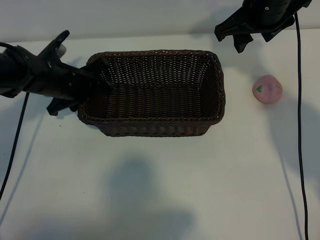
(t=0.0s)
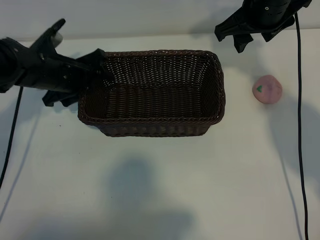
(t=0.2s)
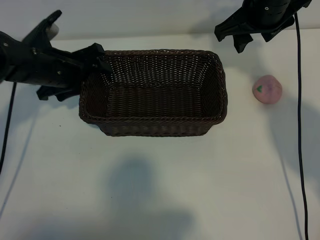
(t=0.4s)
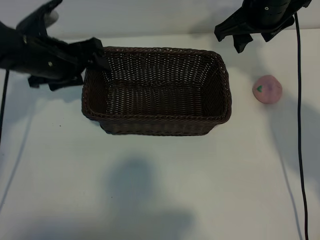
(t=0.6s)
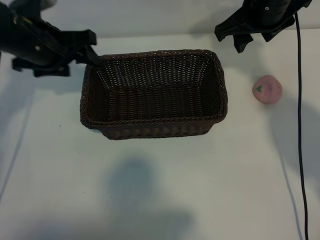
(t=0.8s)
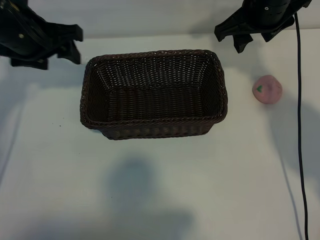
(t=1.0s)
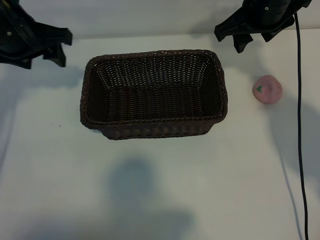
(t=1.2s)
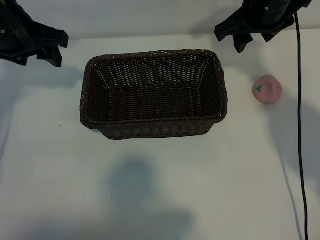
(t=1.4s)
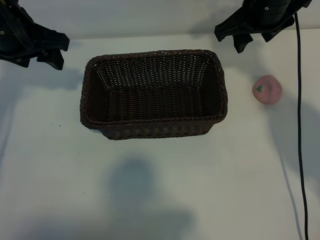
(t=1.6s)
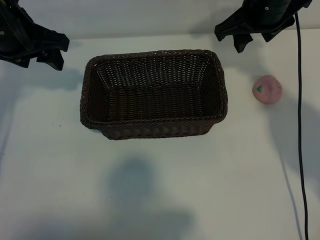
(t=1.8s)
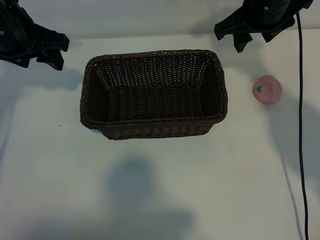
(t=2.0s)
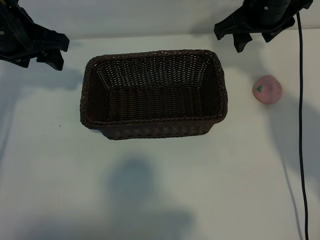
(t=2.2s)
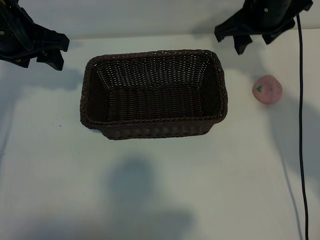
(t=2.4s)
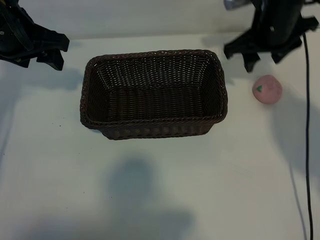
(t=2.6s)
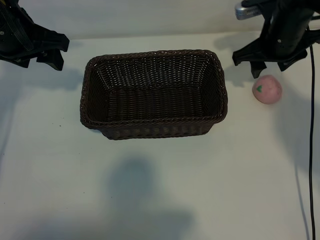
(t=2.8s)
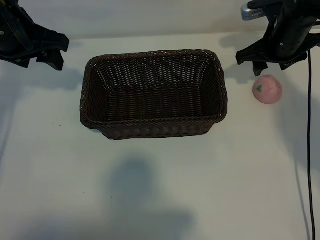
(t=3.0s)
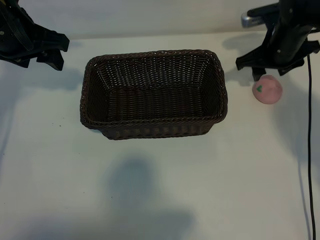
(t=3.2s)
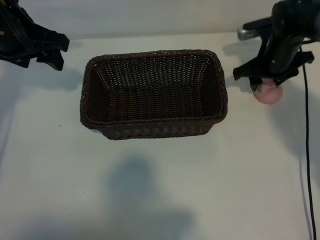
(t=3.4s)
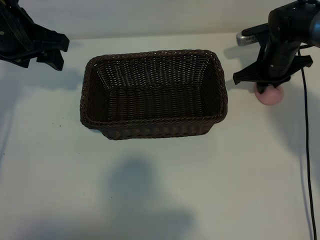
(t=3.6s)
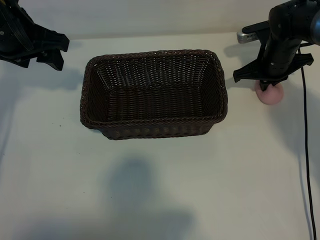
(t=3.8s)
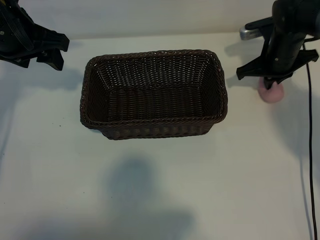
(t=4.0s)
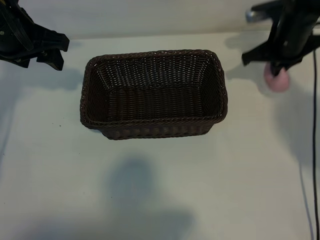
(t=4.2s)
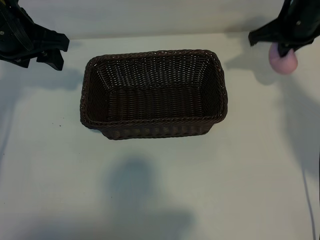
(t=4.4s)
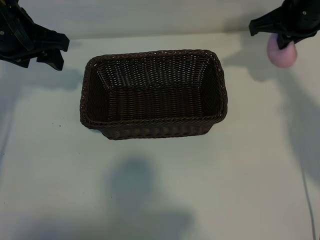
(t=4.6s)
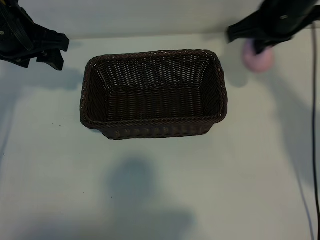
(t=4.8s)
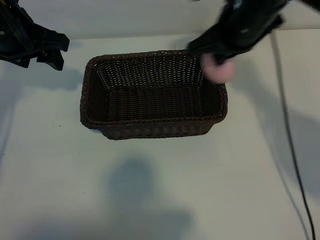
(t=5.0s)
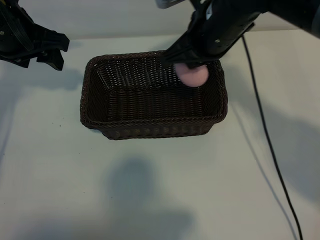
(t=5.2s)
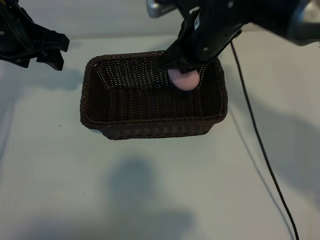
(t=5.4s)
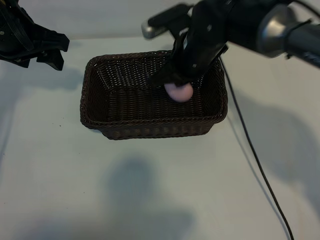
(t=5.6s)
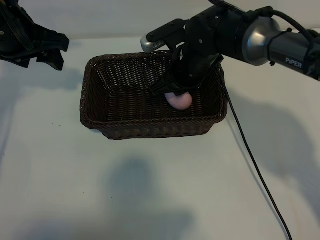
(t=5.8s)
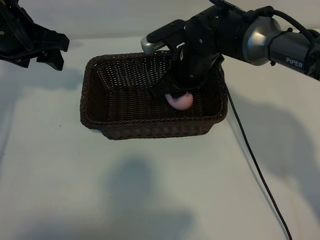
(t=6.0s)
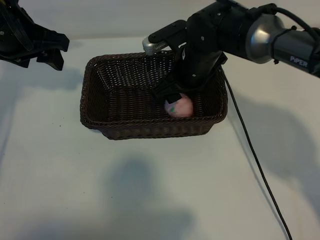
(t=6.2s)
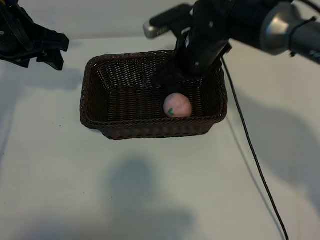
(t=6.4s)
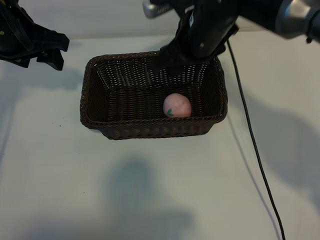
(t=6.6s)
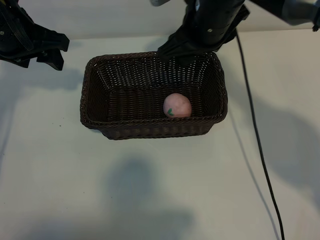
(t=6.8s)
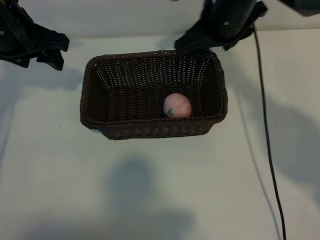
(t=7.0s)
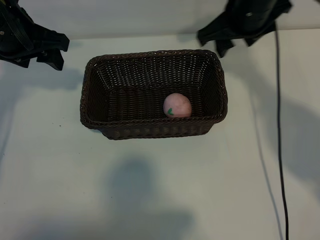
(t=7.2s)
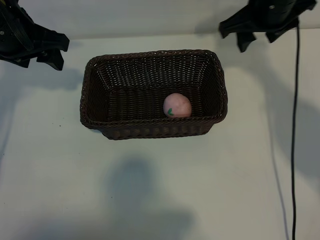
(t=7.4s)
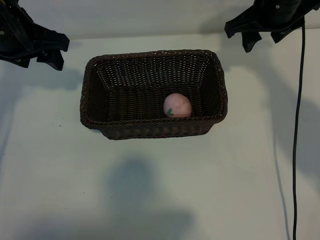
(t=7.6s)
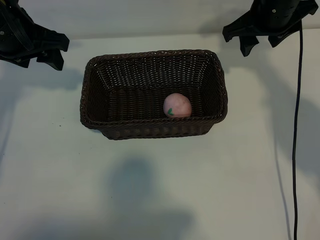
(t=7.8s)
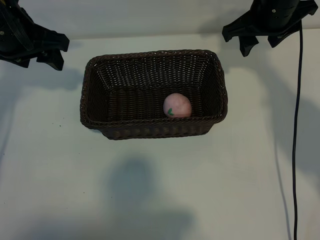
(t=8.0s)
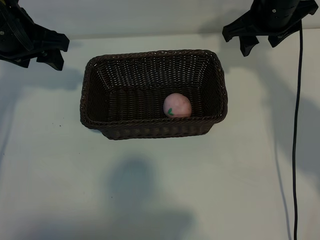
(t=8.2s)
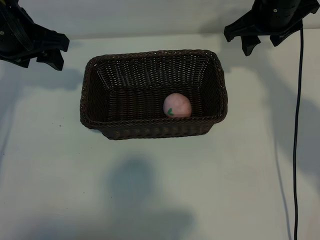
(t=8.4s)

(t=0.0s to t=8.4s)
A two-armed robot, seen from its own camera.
Task of the whole recording: pick up the peach and put it into the basket.
Step, t=0.6s - t=3.8s: Grasp the peach with right gripper.
Step, t=4.0s - t=6.2s: Place the peach in the basket with right gripper.
